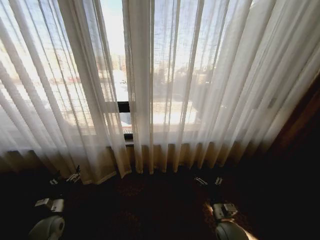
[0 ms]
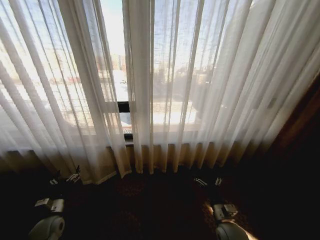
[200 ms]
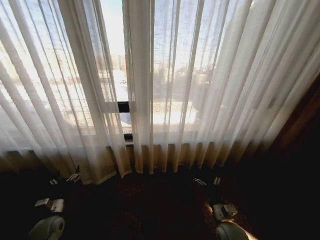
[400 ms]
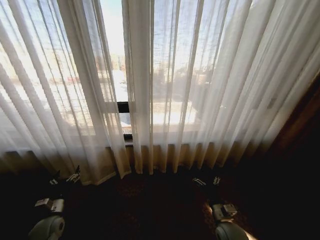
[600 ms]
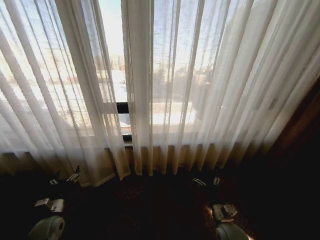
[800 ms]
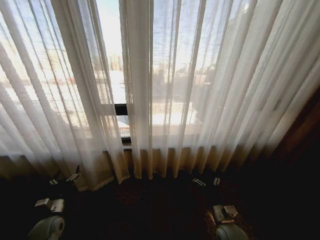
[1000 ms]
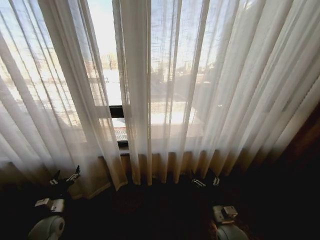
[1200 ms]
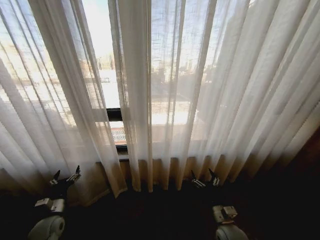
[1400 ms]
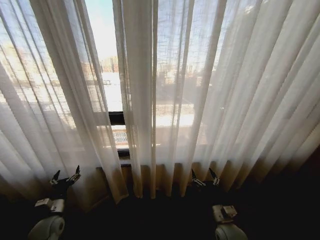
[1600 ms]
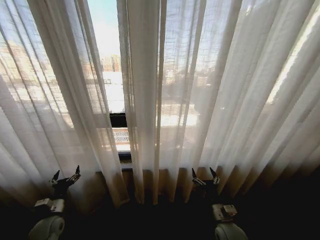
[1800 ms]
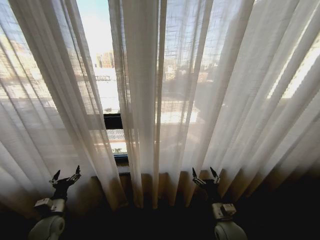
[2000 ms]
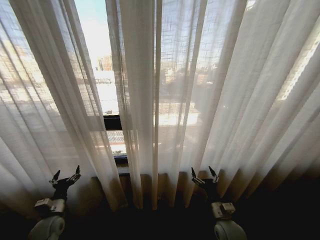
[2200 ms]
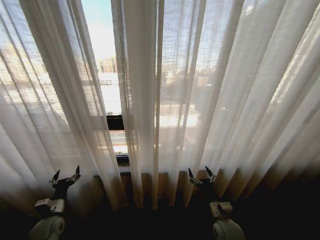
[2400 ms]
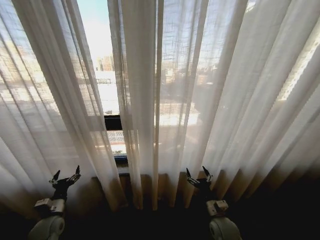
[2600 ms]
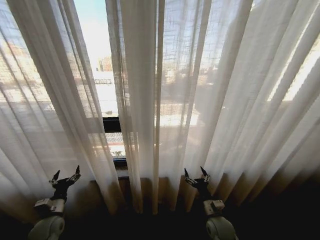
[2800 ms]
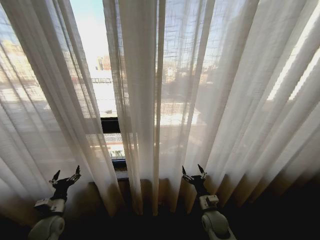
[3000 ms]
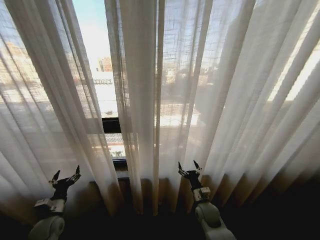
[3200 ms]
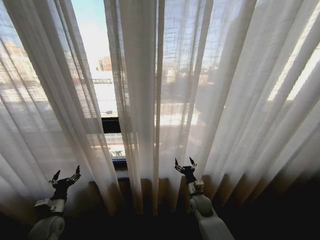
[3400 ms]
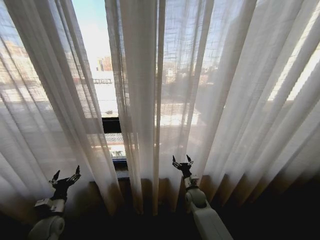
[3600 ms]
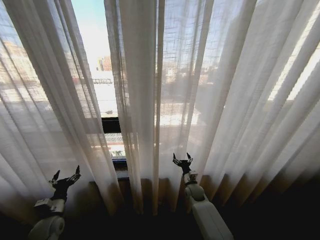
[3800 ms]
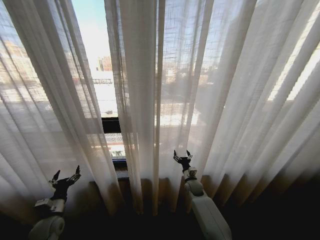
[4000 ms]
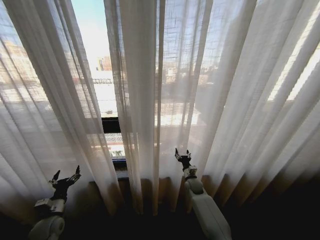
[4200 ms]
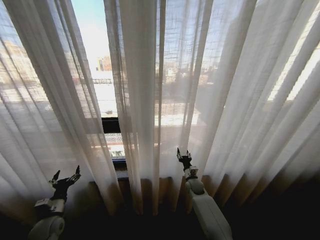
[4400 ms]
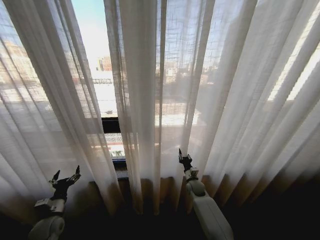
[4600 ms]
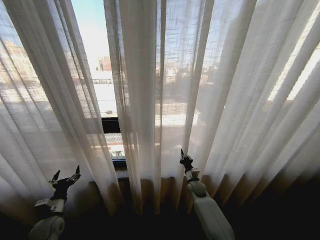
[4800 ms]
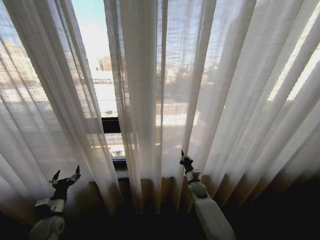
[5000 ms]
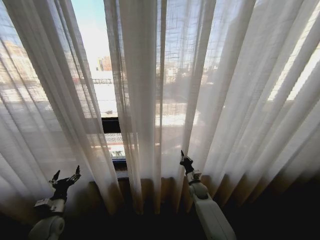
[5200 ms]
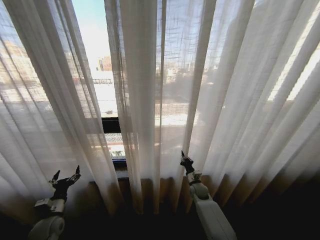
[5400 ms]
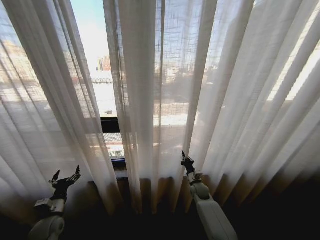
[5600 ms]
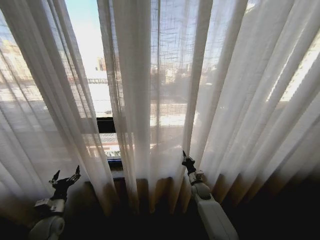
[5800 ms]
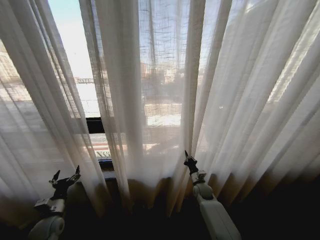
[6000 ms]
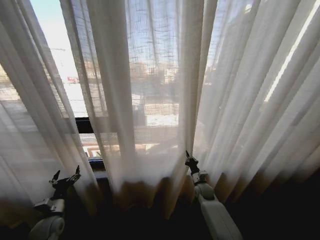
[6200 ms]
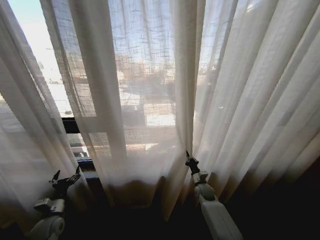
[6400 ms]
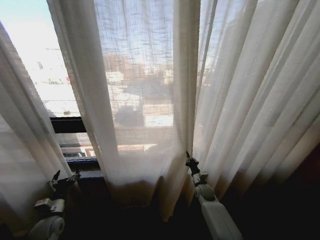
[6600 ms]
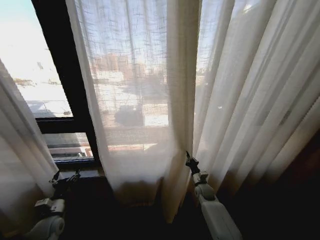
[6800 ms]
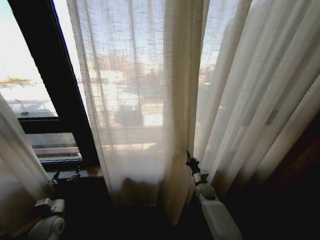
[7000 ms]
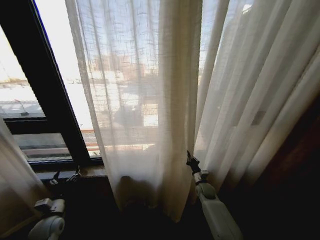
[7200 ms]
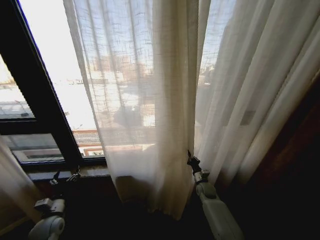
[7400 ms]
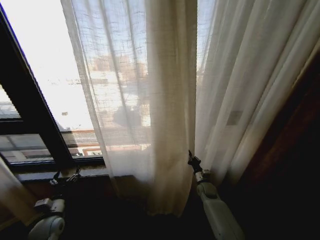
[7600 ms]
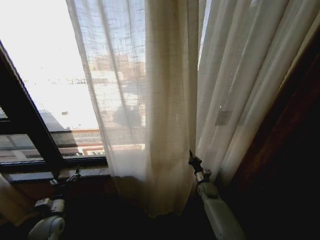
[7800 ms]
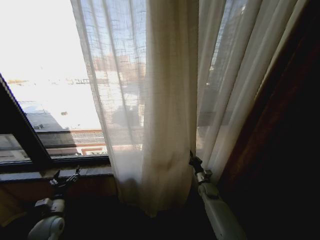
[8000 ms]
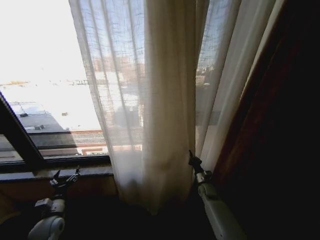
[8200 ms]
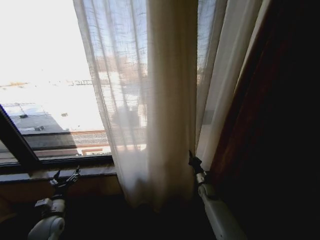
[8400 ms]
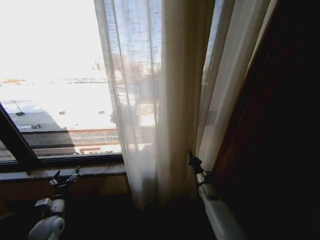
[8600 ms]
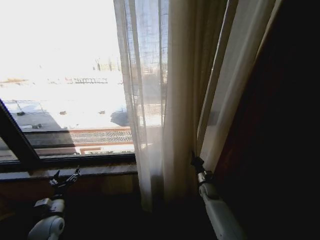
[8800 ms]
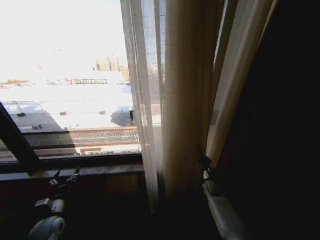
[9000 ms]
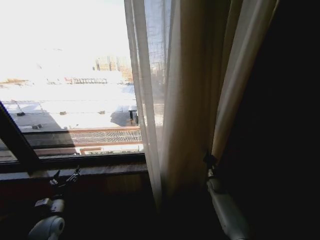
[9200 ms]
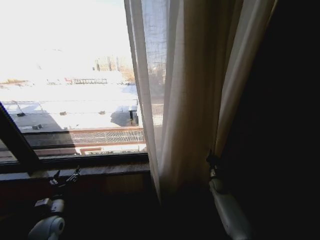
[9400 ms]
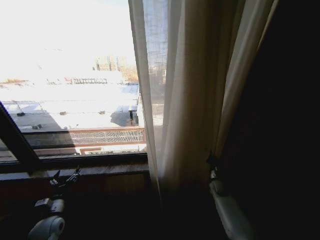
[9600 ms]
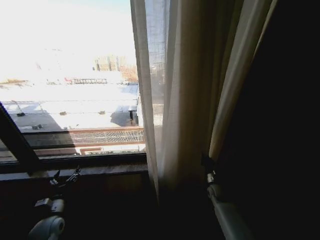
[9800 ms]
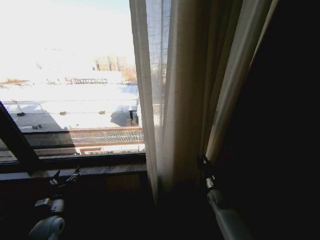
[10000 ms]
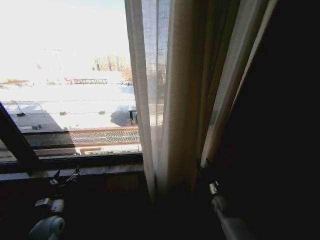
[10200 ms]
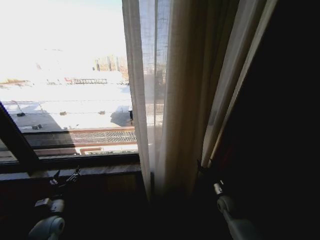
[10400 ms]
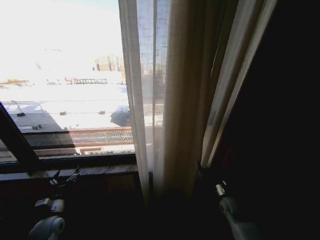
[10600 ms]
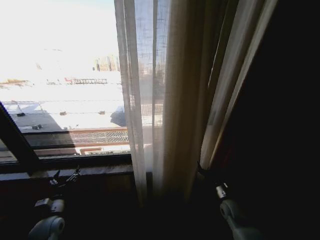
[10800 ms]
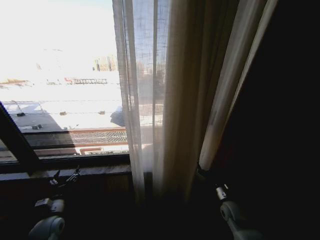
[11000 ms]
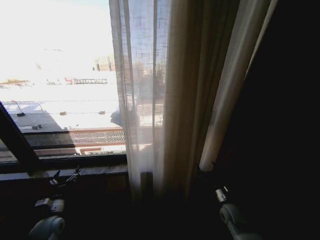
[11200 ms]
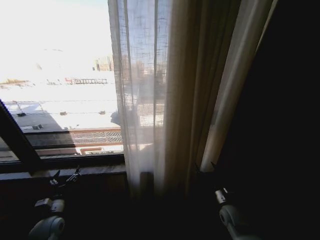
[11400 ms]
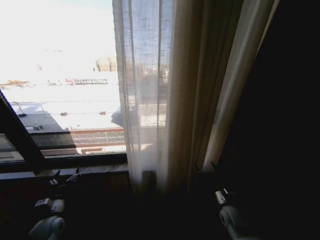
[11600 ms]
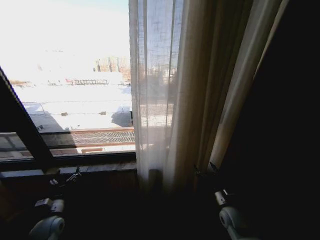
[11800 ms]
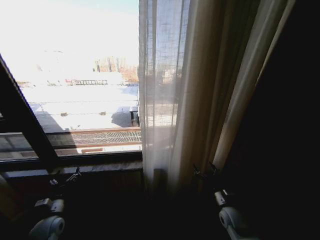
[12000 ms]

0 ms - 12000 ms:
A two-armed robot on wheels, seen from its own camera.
Task of the whole recording: Open the curtains by pulling them apart, changing their state from closed to fully open.
1600 ms - 3000 ms: The right gripper goes about 5 cm forward.
3000 ms - 4400 ms: The right gripper heads forward, covering about 15 cm, and closes up.
4400 ms - 6000 ms: The right gripper closes its fingers.
9000 ms - 10400 ms: The right gripper goes approximately 10 cm backward, and opens up.
10400 ms - 12000 ms: The right gripper shifts approximately 5 cm backward.

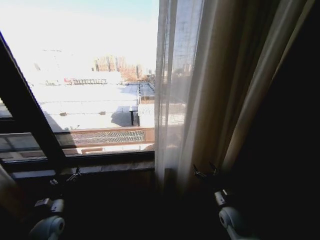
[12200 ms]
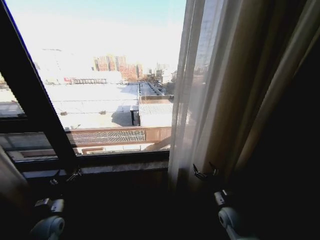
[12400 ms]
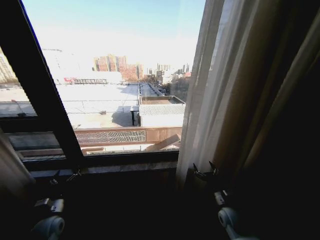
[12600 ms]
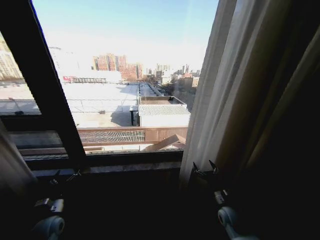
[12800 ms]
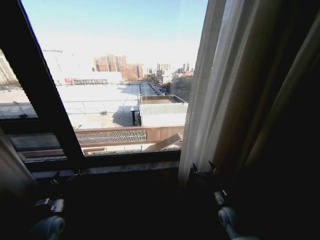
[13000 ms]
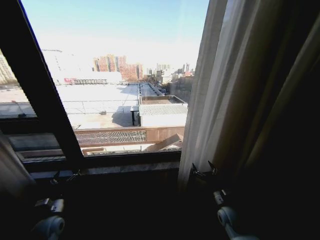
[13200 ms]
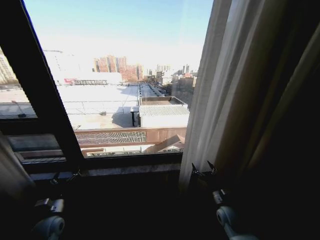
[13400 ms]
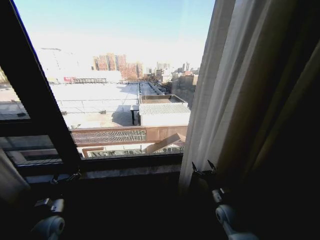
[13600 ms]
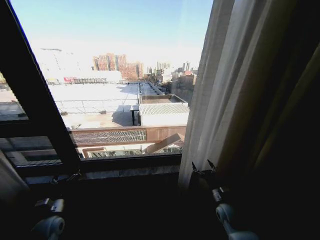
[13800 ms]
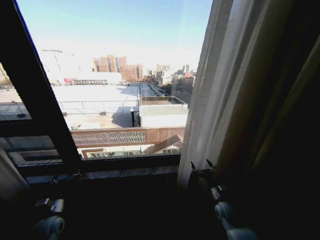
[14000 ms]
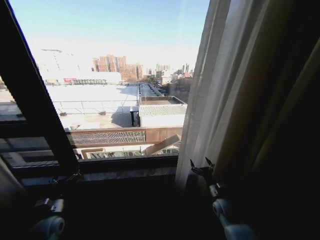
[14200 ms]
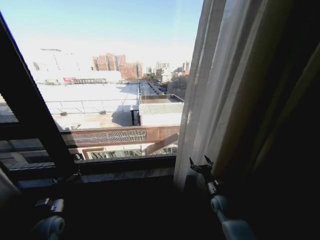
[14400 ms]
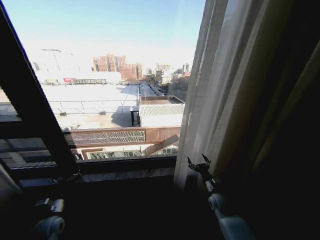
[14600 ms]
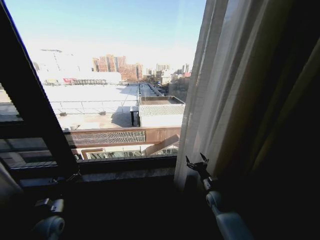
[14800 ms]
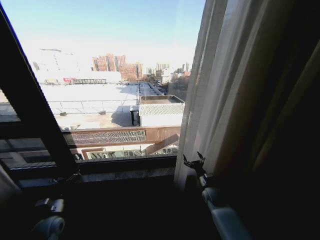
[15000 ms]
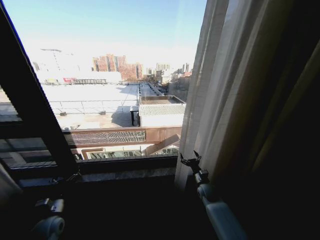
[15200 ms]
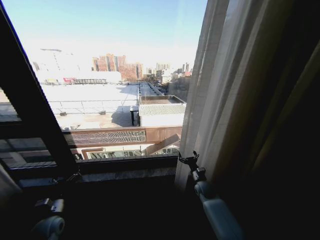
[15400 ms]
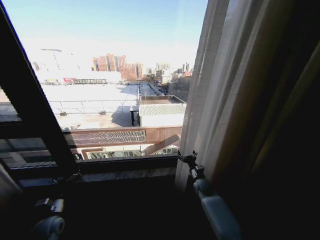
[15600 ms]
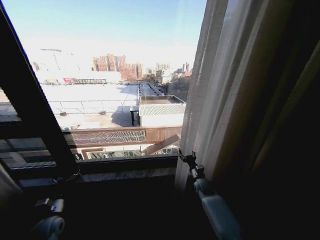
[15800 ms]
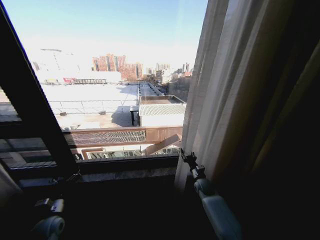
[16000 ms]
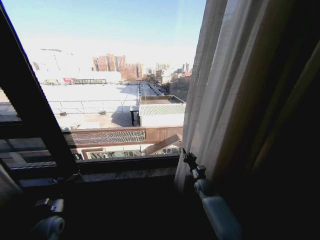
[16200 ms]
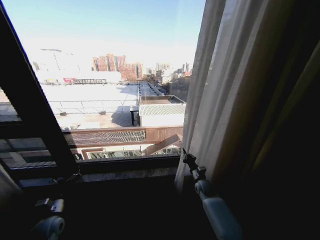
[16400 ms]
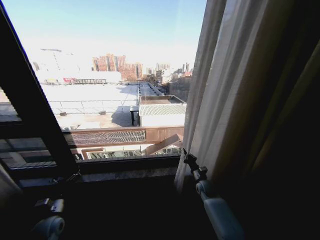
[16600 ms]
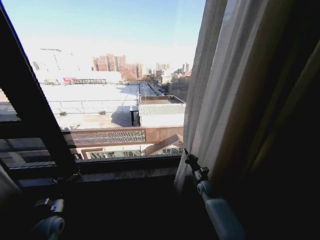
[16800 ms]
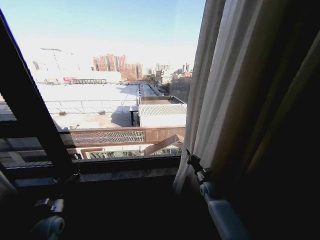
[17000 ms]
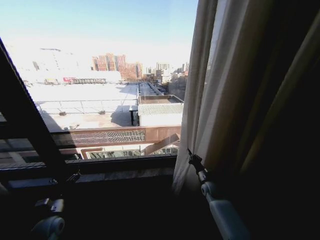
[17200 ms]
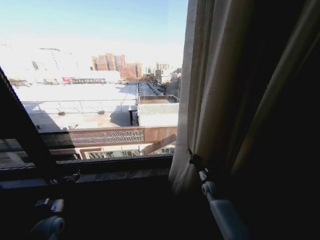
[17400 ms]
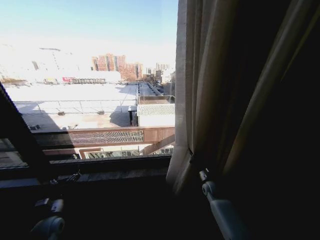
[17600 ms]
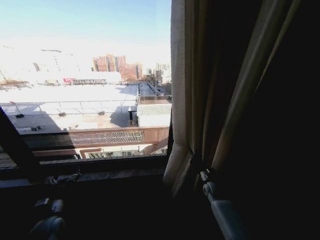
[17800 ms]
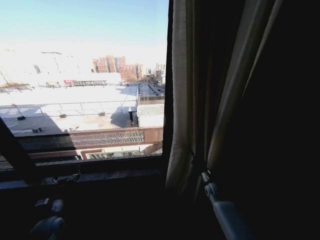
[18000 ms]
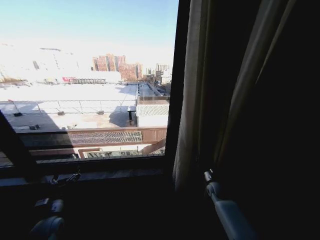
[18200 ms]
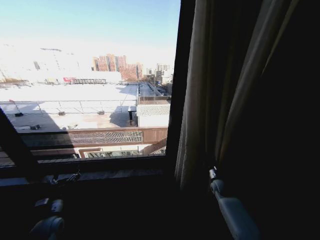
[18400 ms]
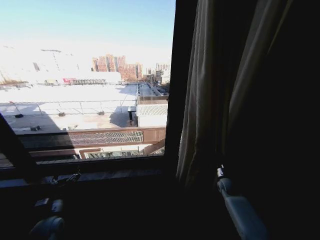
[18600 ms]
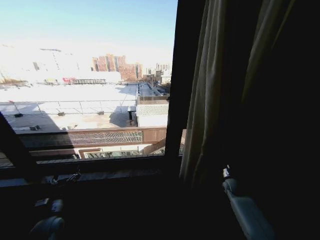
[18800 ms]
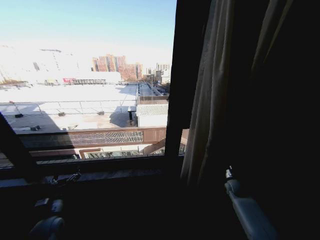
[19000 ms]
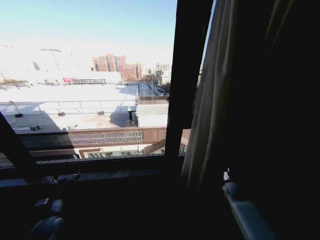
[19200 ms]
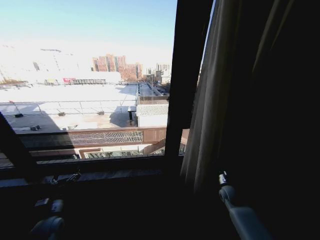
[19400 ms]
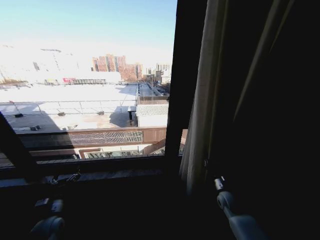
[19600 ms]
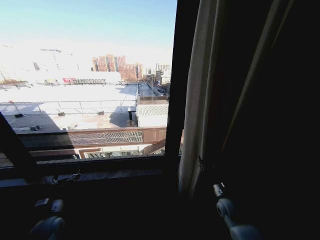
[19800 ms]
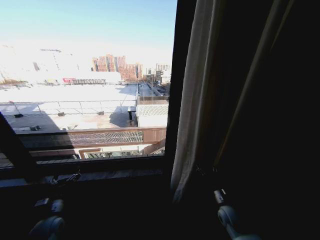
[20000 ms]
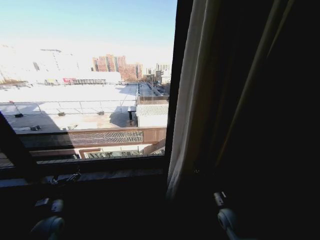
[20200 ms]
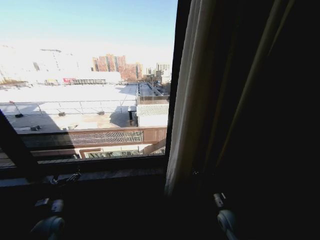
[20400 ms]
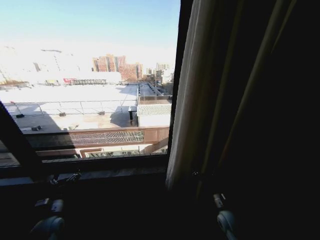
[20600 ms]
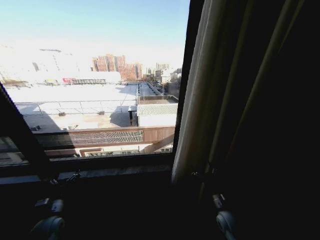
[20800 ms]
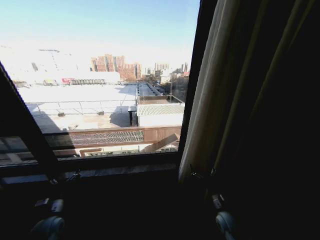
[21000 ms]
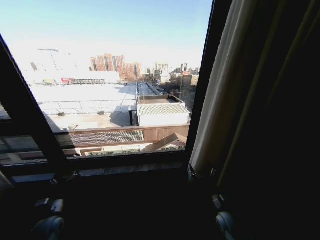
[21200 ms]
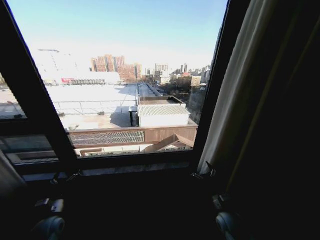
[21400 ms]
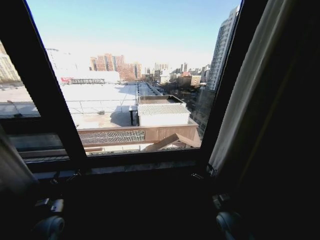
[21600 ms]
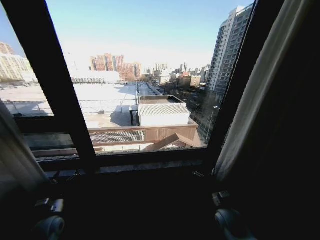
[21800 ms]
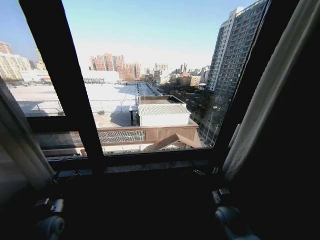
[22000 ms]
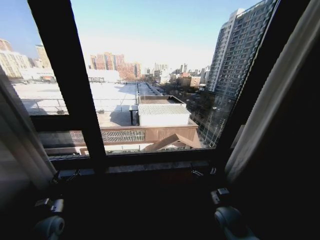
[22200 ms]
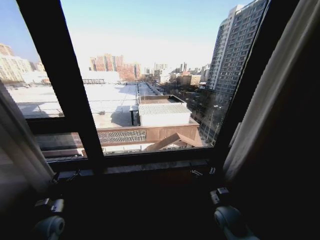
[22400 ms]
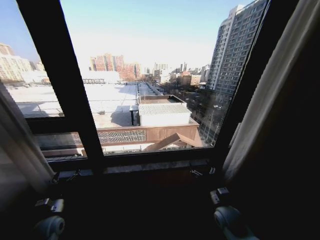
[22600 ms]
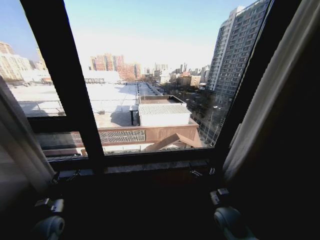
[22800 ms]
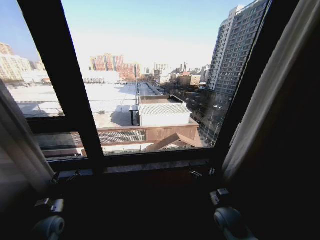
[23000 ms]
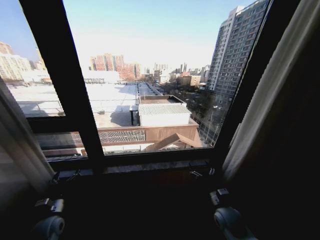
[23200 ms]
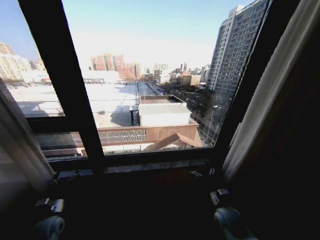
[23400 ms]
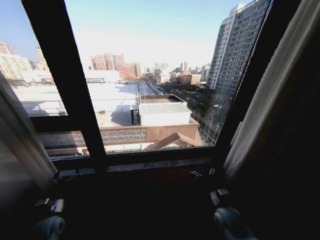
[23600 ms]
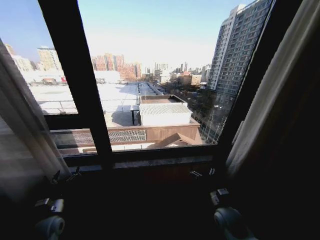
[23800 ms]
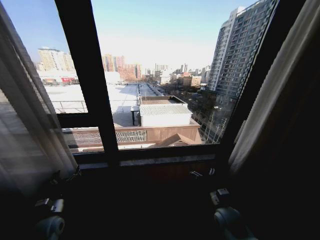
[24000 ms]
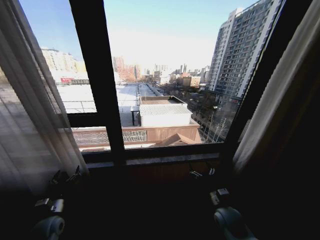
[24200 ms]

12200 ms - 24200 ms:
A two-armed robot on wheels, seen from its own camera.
Task of the whole recording: Open the curtains by pulling them apart, changing their state from closed to fully open.
13800 ms - 15200 ms: The right gripper moves forward, roughly 10 cm.
15200 ms - 16600 ms: The right gripper closes its fingers.
16600 ms - 18200 ms: The right gripper moves to the right, roughly 5 cm.
18200 ms - 19800 ms: The right gripper heads backward, covering about 10 cm, and opens up.
19800 ms - 21200 ms: The right gripper changes place by roughly 5 cm, and opens.
